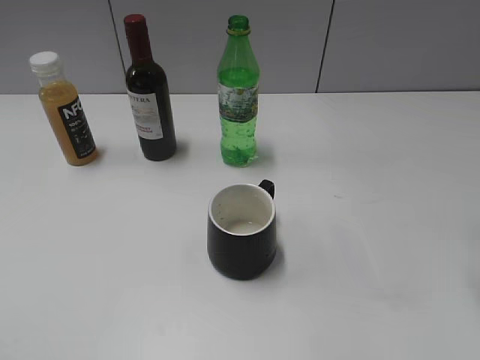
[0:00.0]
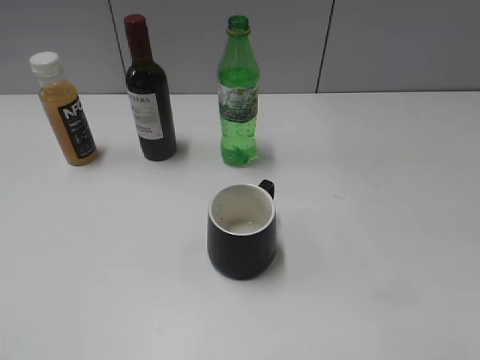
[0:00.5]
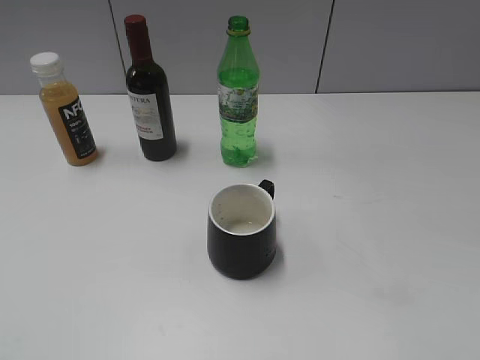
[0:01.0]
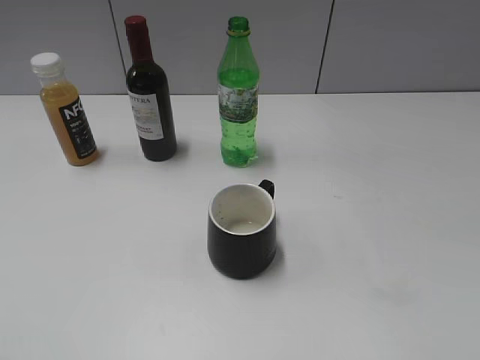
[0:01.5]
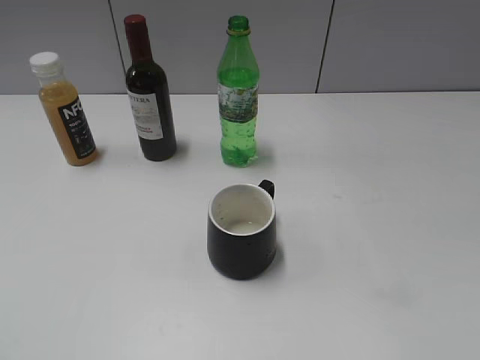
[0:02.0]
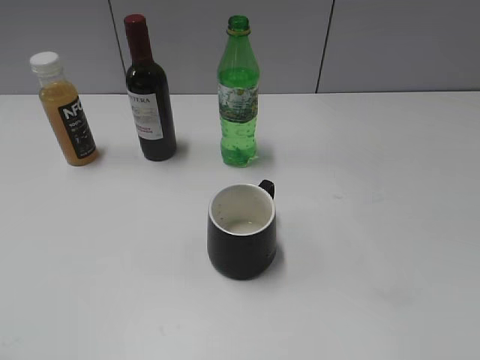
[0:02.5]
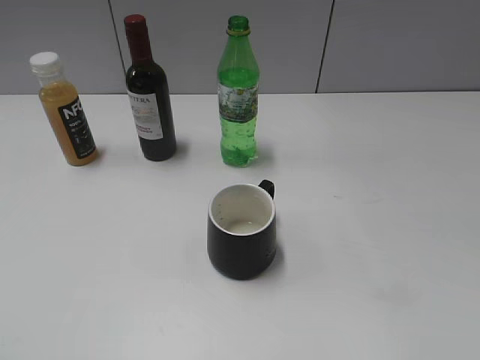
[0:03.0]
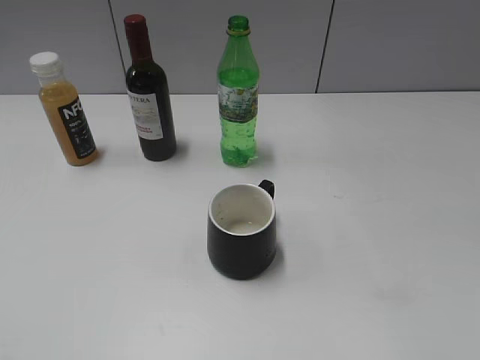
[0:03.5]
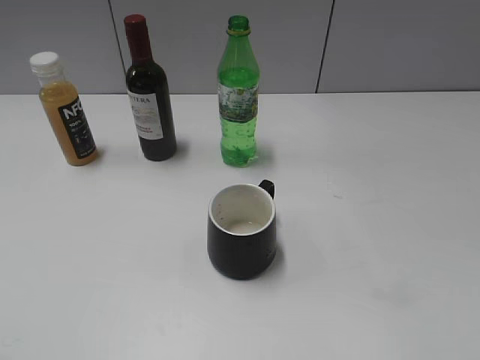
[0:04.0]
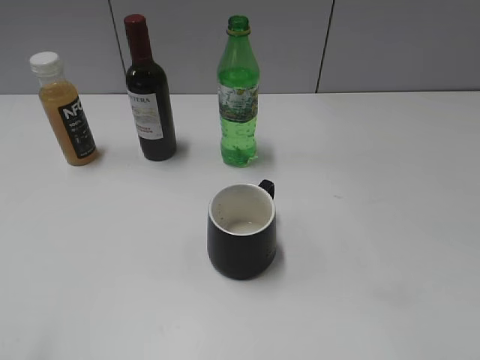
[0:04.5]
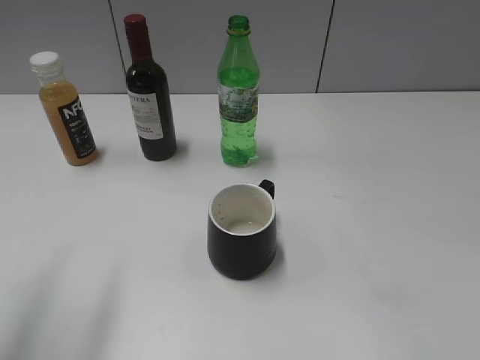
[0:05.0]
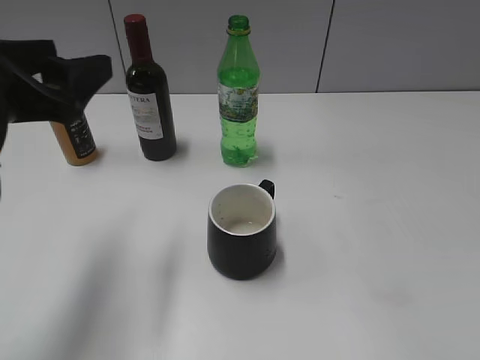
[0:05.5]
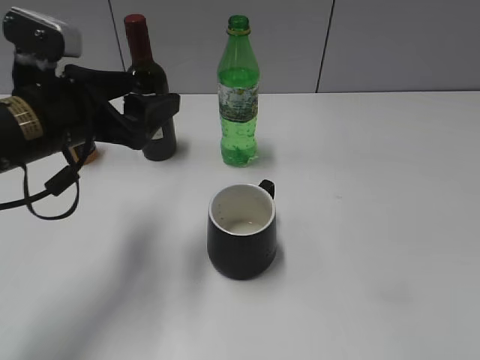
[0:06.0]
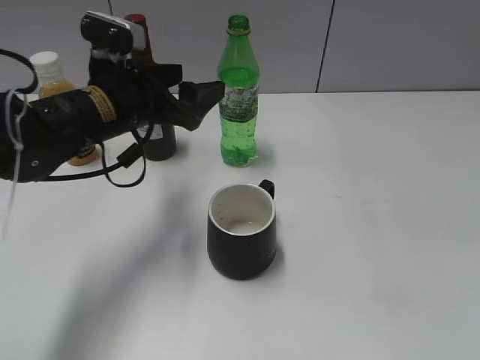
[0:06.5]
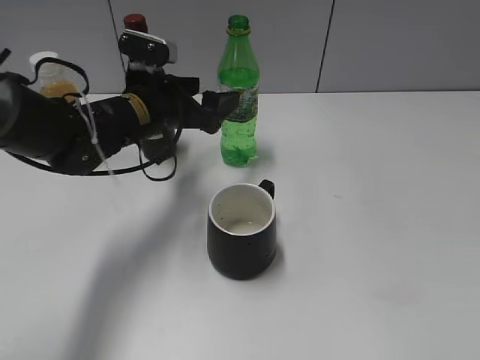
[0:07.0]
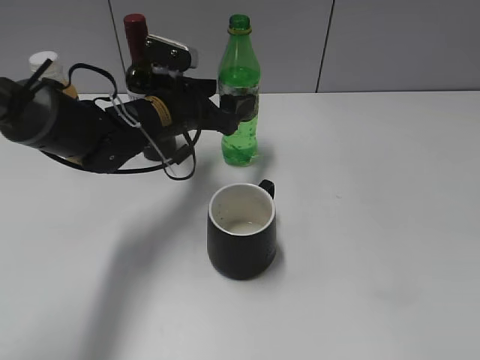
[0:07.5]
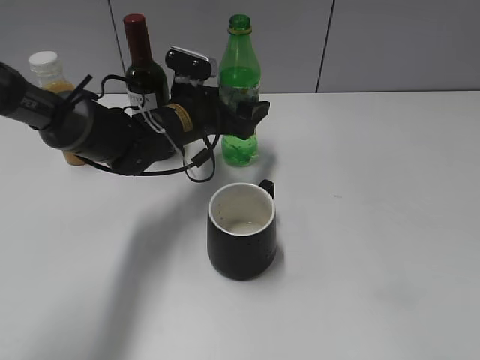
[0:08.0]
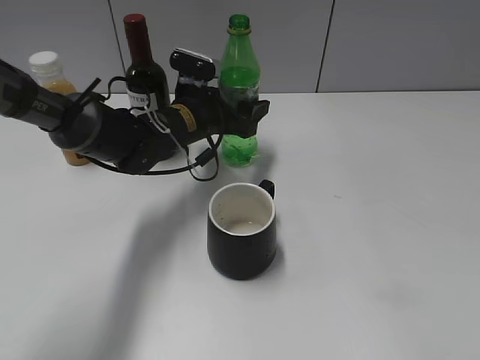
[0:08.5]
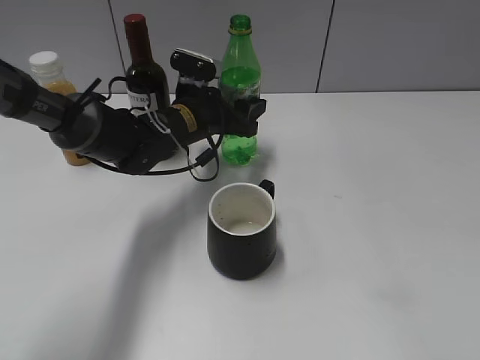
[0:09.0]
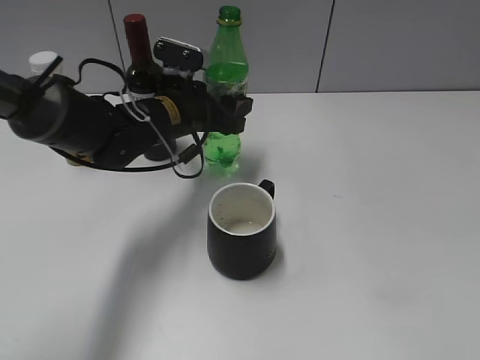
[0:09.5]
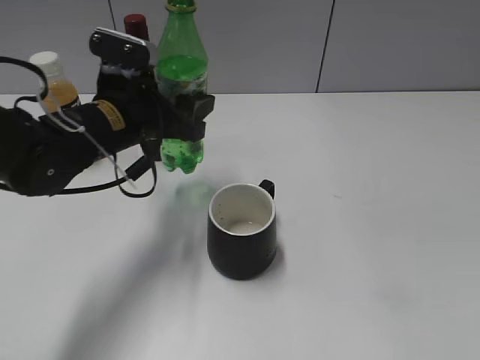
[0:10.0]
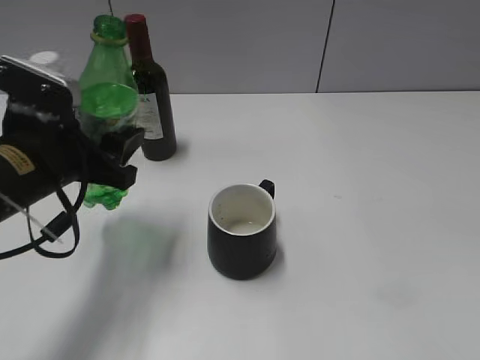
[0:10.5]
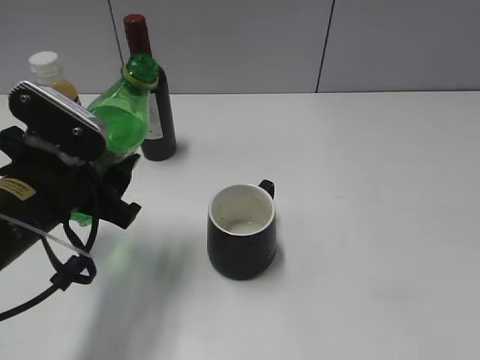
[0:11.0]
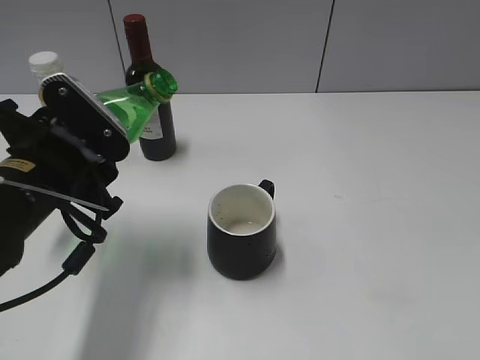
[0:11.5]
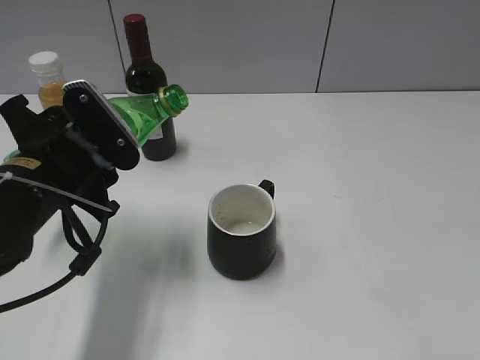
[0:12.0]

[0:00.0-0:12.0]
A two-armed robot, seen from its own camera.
Step, 0:00.0 to 0:08.5: Grasp the bottle with sprite with left gripper.
0:04.0 to 0:06.0: The left gripper heads forward and to the right, covering about 30 cm.
0:06.0 to 0:08.0: The left gripper heads forward, to the right and downward, covering about 20 cm.
0:08.0 to 0:10.0: The left gripper shifts roughly 10 cm backward, upward and to the left, and closes up.
0:10.0 to 0:12.0: The left gripper travels backward by some 10 cm.

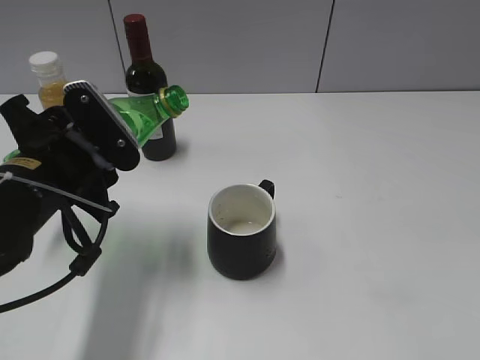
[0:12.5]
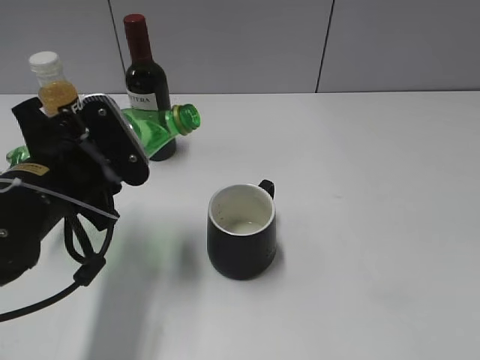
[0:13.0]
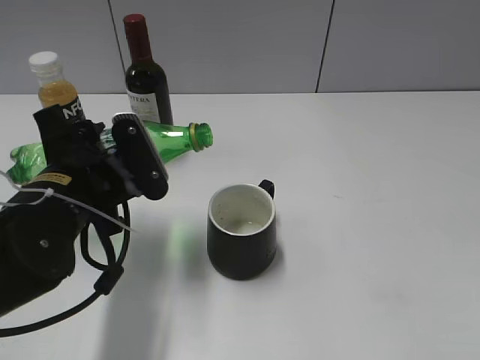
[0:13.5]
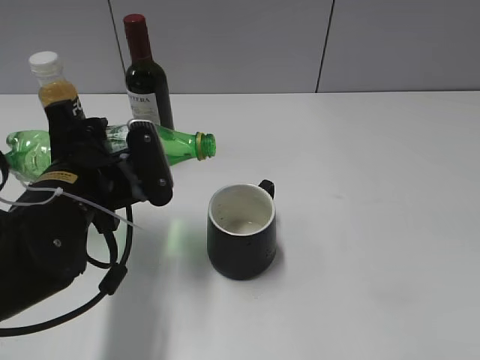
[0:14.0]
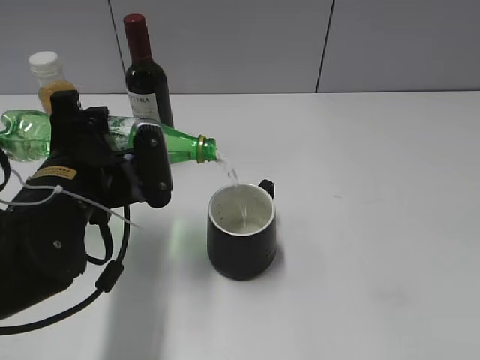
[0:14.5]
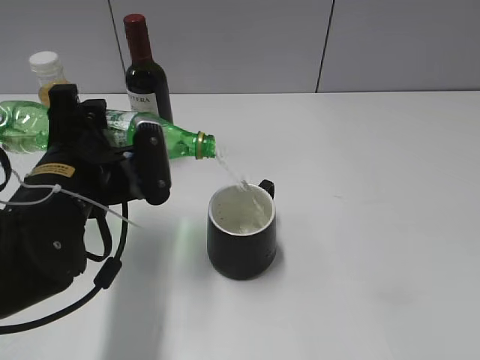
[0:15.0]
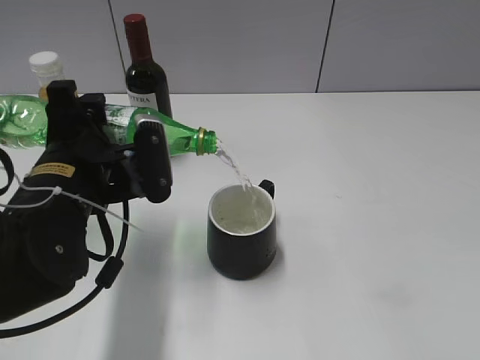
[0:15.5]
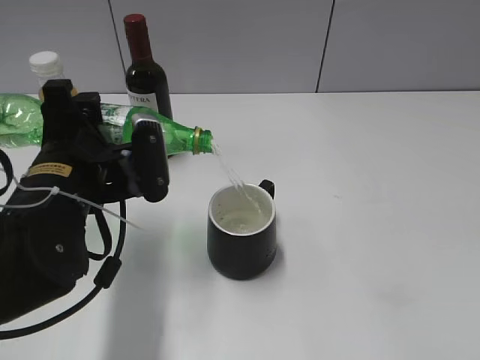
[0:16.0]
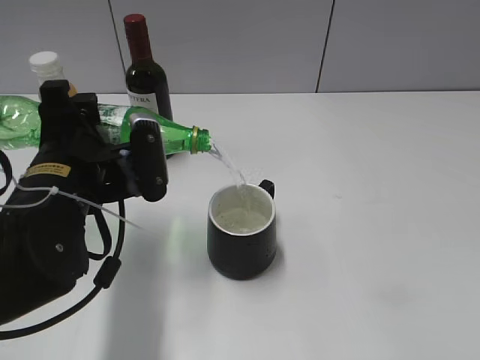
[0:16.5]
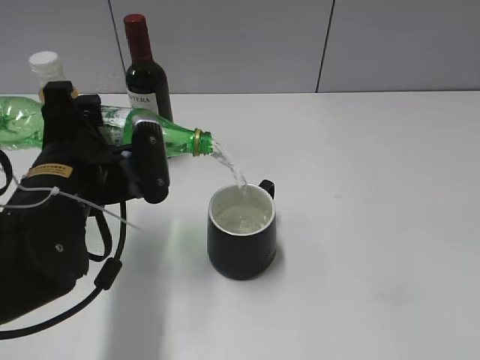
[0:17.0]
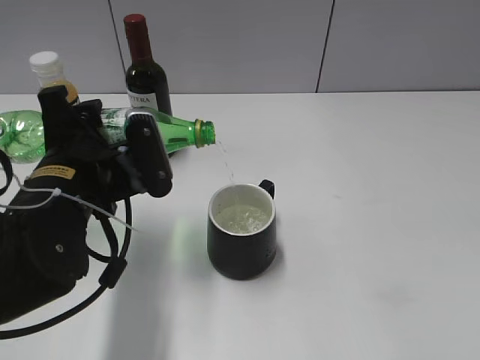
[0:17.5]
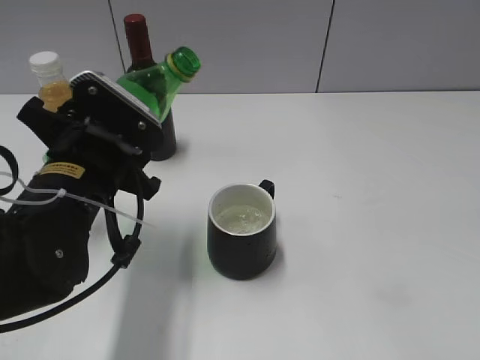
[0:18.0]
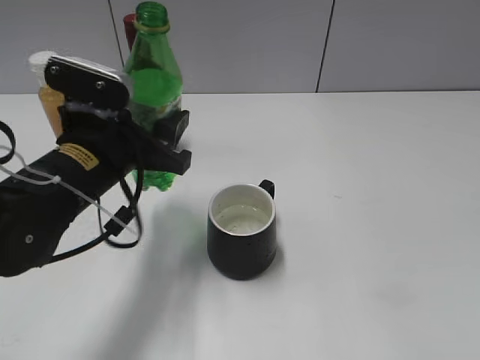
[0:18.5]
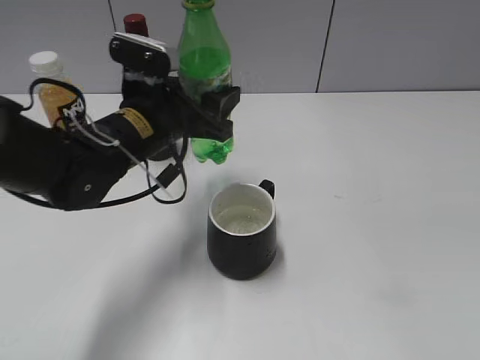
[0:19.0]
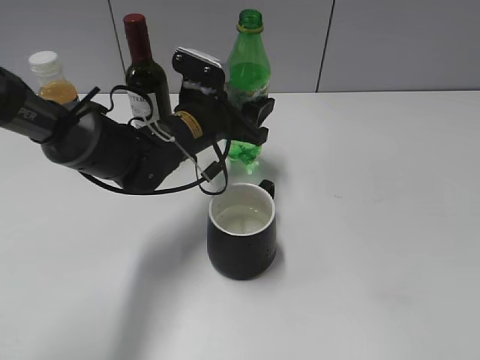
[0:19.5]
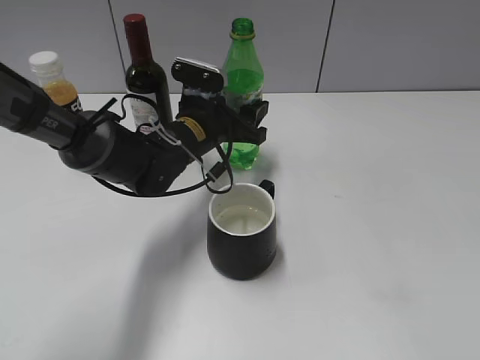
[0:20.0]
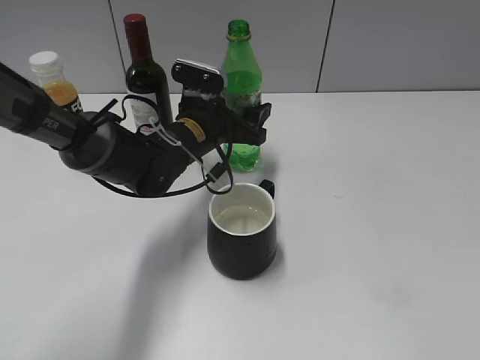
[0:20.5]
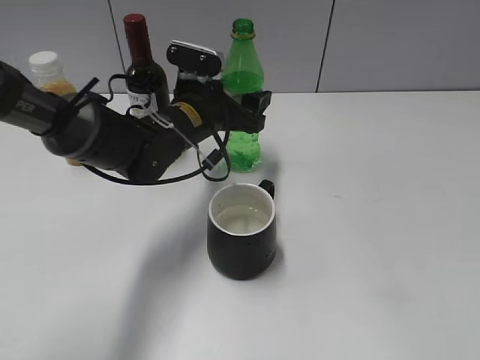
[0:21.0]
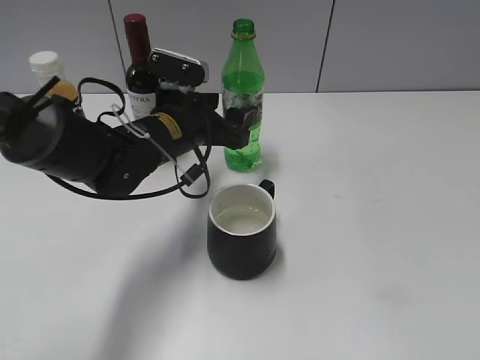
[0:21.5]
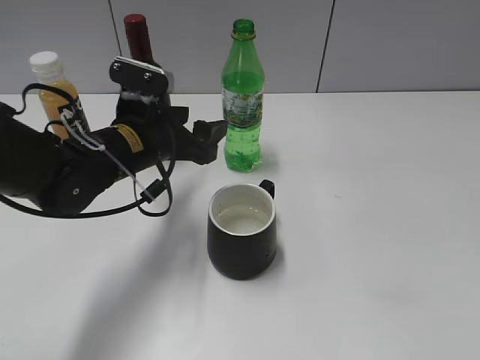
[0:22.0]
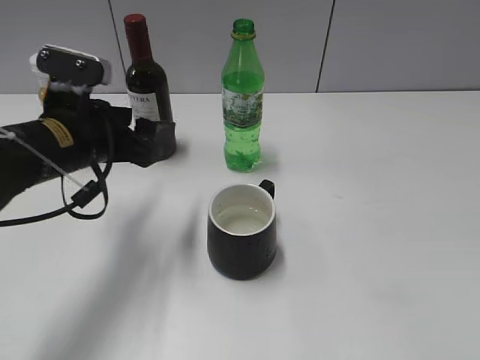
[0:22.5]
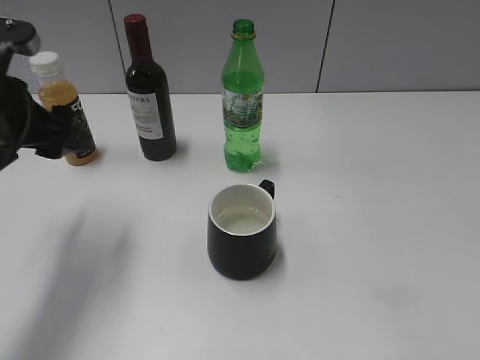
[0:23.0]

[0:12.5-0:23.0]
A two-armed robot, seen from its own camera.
Step, 0:12.5 to 0:17.5: Pour the sprite from bottle to cup with left gripper.
Step, 0:18.0 to 0:21.5: Place the sprite bottle on the table with left gripper.
0:14.5 to 0:16.5: There are only small adjustments of the grippers.
0:16.5 to 0:19.0: The left gripper travels forward and to the right by about 10 cm.
0:19.0 to 0:21.0: The left gripper goes about 5 cm forward.
0:21.0 to 0:23.0: The left gripper heads to the left, backward and upward, covering some 25 cm.

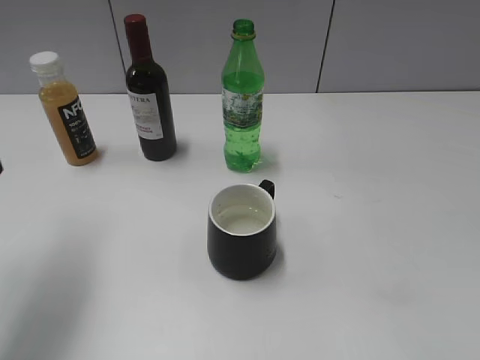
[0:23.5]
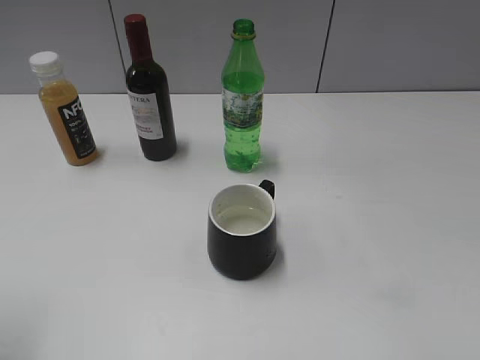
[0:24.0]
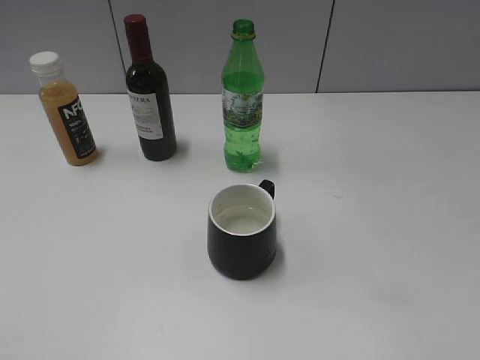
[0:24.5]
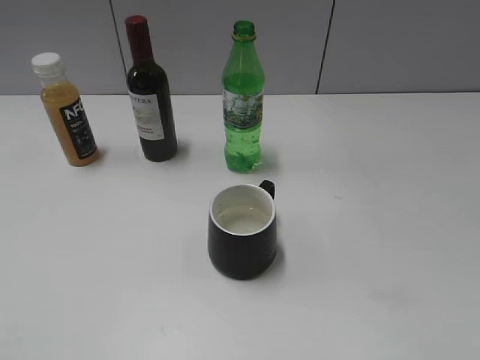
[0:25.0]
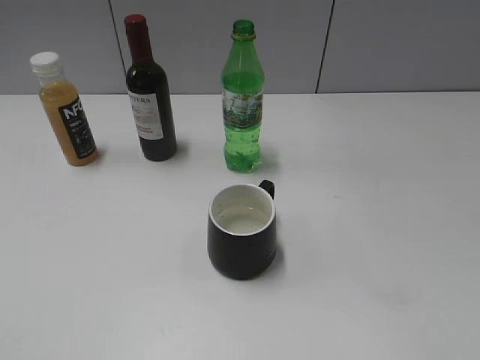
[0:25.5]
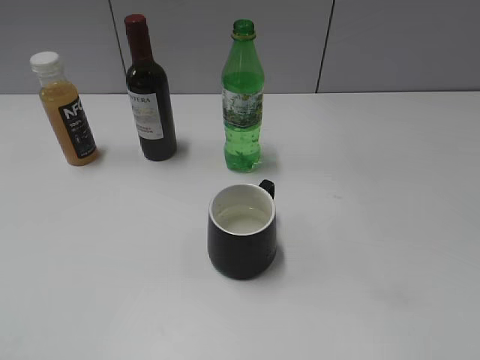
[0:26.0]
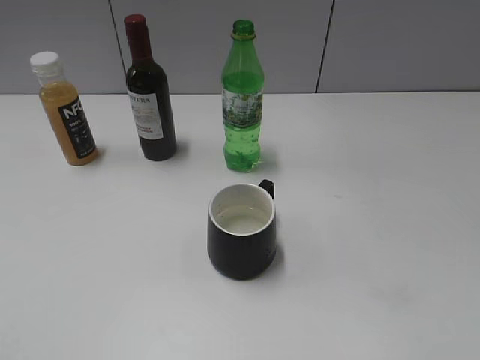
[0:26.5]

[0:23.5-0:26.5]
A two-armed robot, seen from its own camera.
0:23.5 to 0:25.0: The left gripper travels backward by roughly 25 cm.
